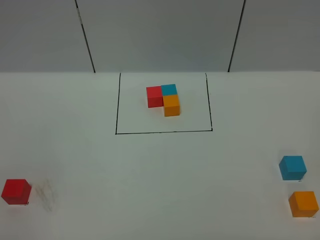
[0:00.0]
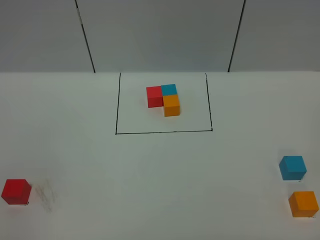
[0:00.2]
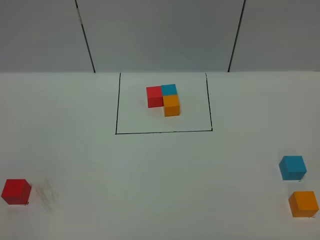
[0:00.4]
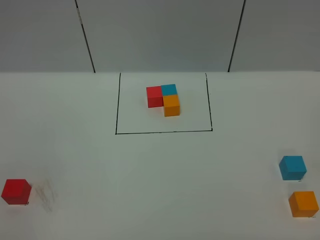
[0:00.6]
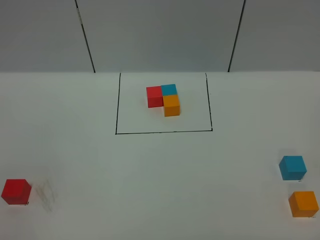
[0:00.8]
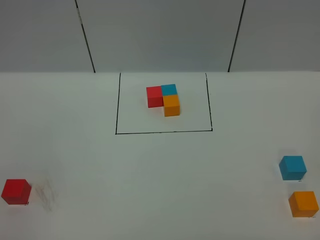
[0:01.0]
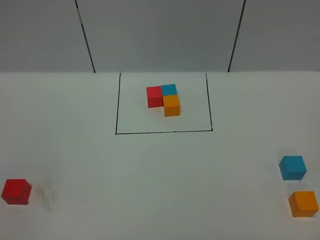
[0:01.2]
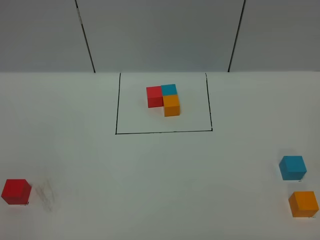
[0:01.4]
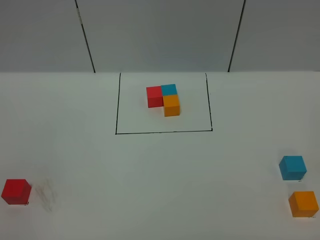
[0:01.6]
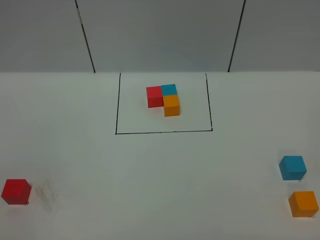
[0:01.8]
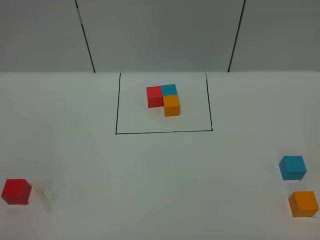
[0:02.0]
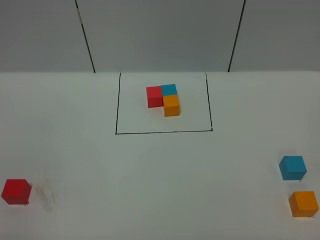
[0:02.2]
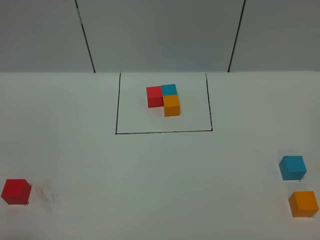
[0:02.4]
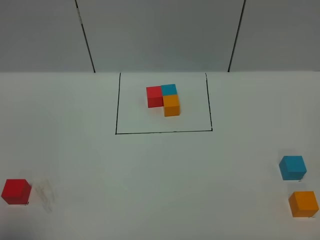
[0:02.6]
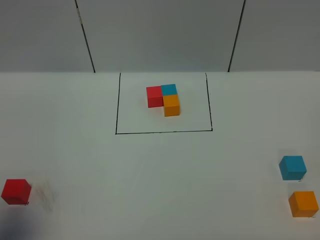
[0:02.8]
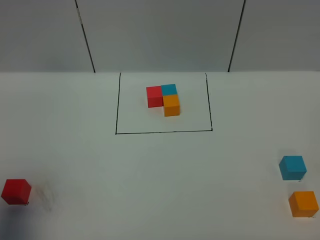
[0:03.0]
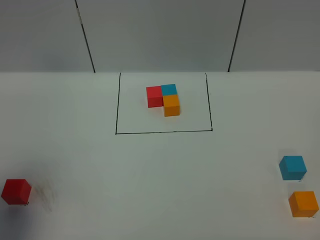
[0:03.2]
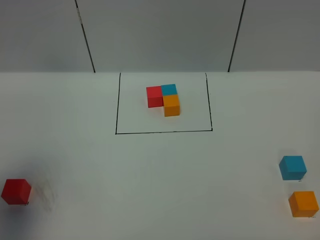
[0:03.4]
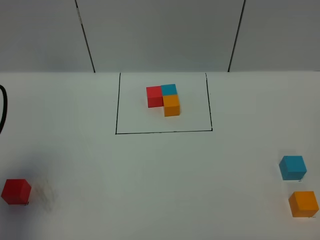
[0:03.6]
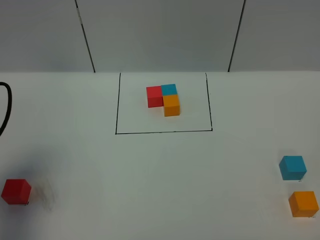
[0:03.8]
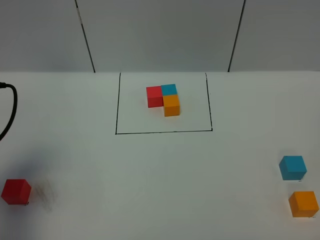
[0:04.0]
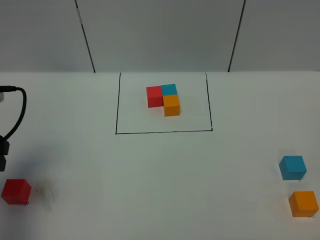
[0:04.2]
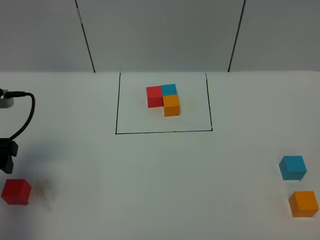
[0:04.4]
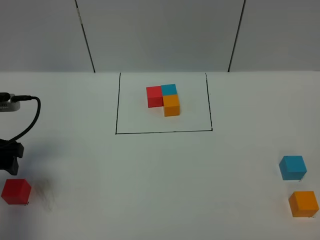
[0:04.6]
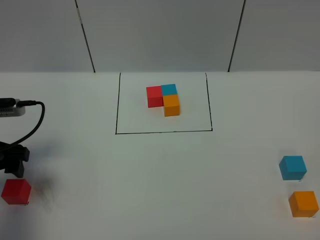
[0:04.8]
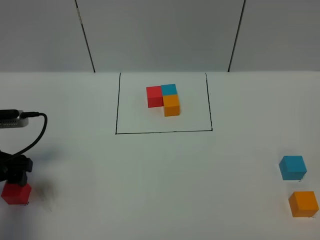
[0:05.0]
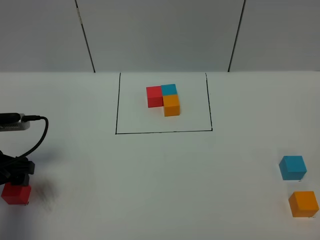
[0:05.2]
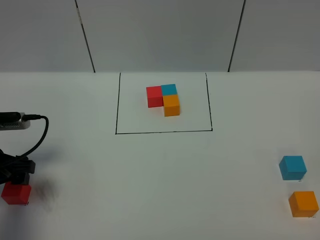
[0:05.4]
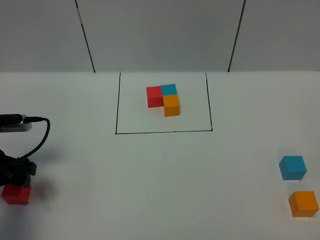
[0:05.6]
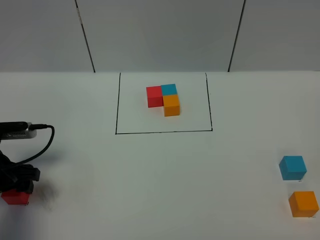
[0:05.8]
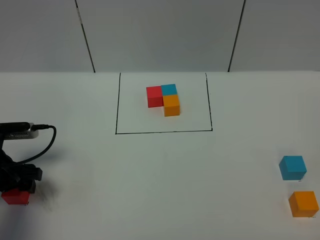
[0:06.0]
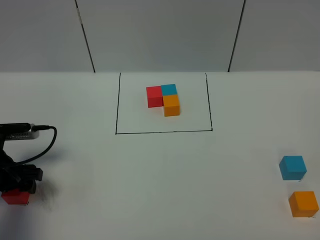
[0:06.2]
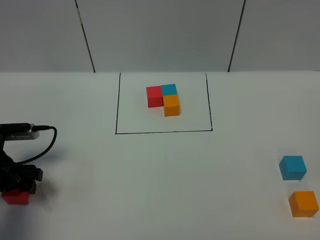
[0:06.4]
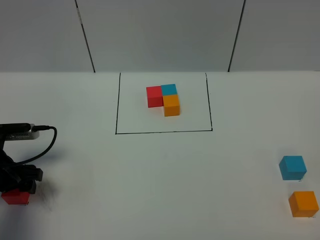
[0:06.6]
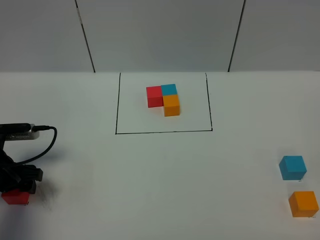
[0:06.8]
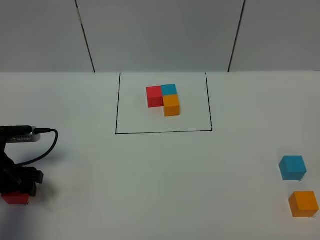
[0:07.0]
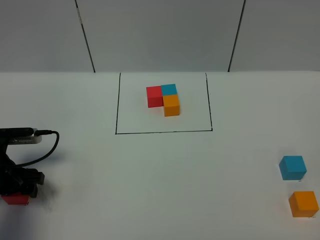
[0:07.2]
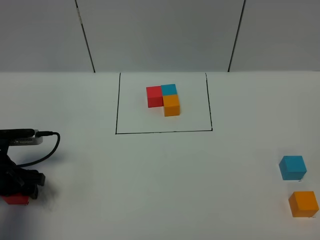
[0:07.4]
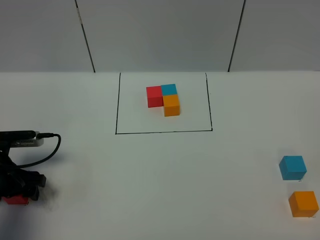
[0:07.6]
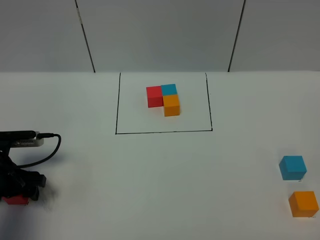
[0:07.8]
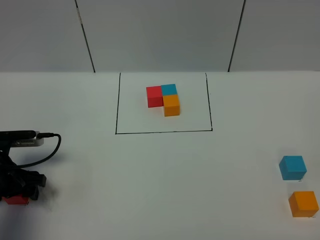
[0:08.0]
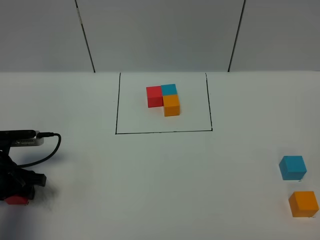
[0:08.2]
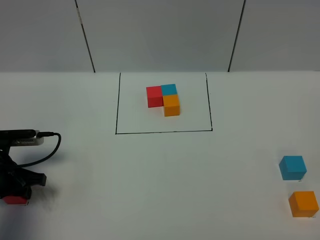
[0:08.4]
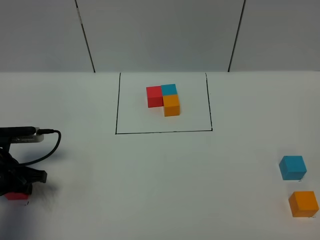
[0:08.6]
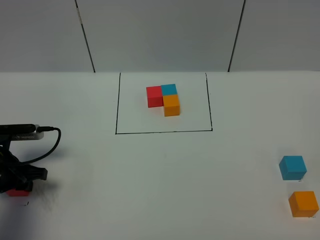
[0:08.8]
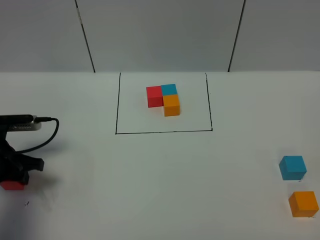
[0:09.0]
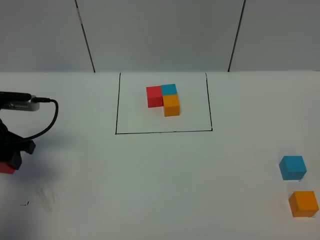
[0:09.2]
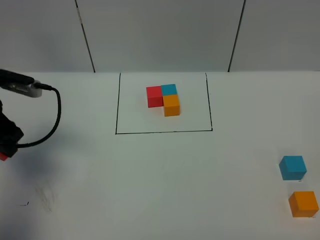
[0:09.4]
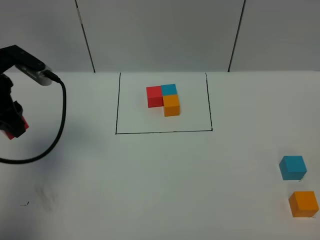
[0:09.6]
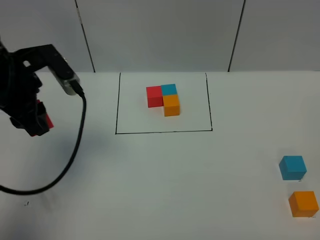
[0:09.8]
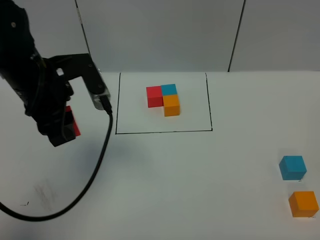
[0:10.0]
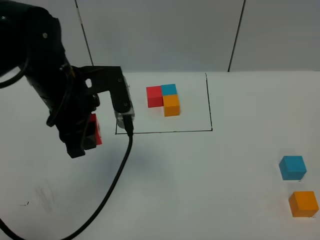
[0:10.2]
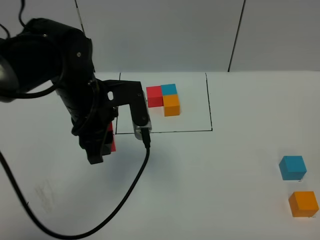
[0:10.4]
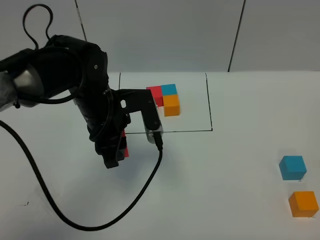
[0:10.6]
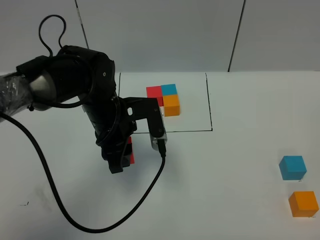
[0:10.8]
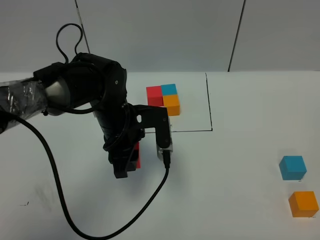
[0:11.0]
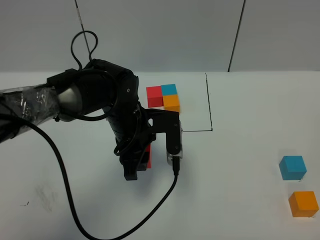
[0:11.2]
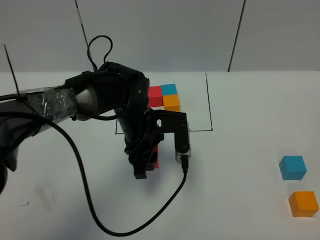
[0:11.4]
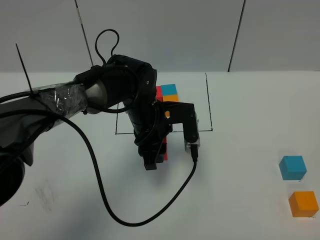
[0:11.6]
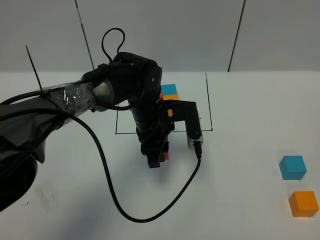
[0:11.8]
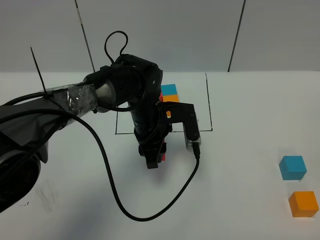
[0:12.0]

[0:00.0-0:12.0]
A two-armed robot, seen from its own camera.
Task of the whole recording: According to the building block template in front, assemble the scattered blocks together.
0:00.0 to 0:01.6: Neither gripper changes place.
0:01.6 to 0:03.0: The left gripper heads forward and upward, covering about 20 cm.
0:03.0 to 0:04.4: The left gripper goes about 15 cm forward and downward, and opens up.
0:04.4 to 0:06.0: The left gripper heads downward, covering some 10 cm.
0:06.0 to 0:07.6: The grippers move only a little.
0:07.6 to 0:09.0: The left gripper closes up.
0:09.0 to 0:10.4: The left gripper heads to the right and upward, covering about 25 cm.
0:10.4 to 0:12.0: The left gripper goes about 15 cm downward, to the right and forward.

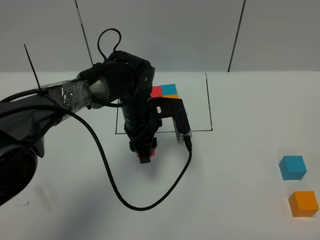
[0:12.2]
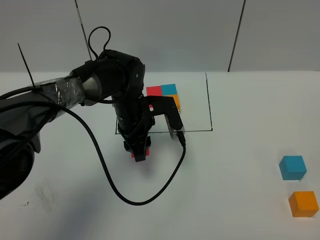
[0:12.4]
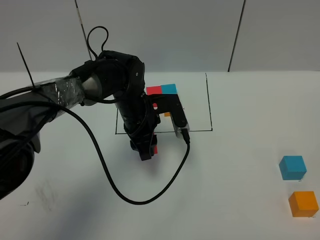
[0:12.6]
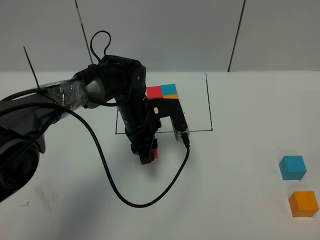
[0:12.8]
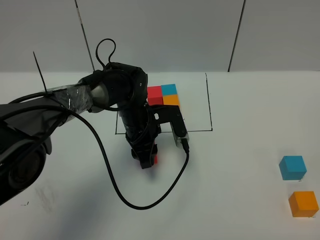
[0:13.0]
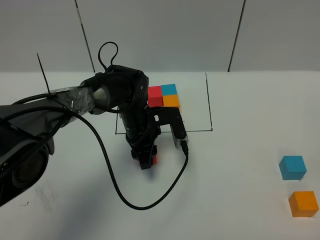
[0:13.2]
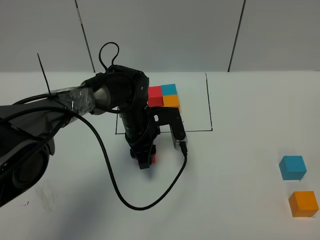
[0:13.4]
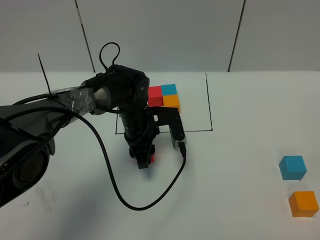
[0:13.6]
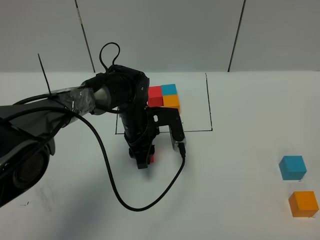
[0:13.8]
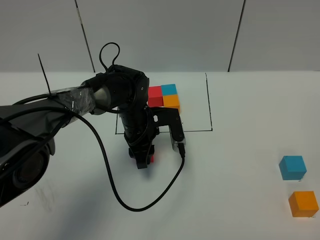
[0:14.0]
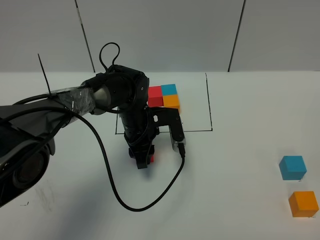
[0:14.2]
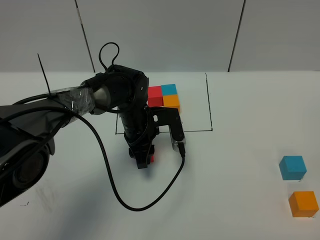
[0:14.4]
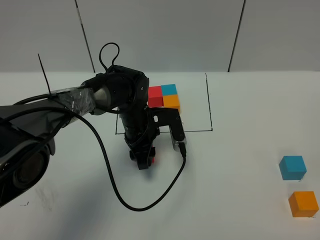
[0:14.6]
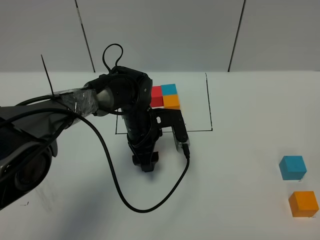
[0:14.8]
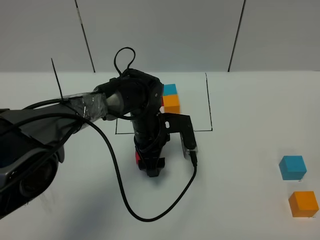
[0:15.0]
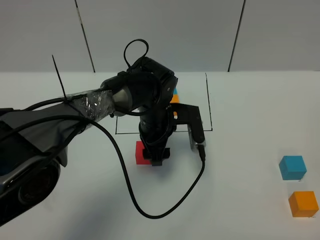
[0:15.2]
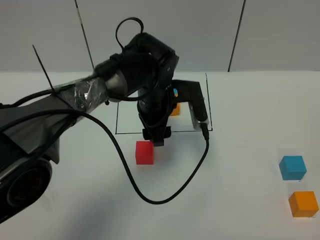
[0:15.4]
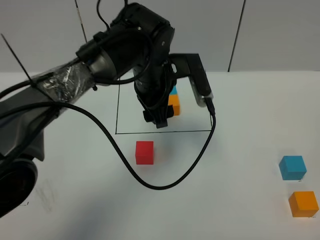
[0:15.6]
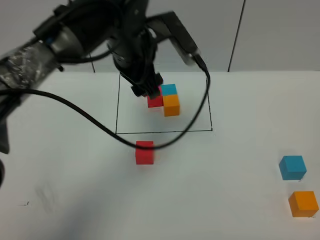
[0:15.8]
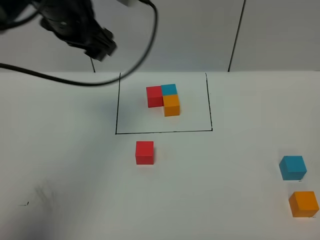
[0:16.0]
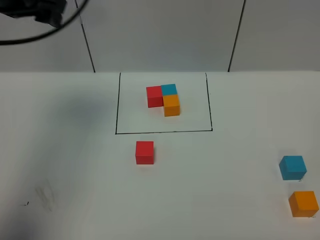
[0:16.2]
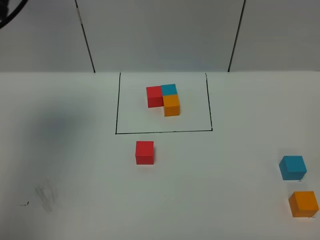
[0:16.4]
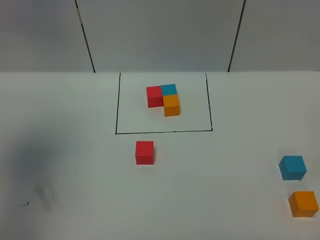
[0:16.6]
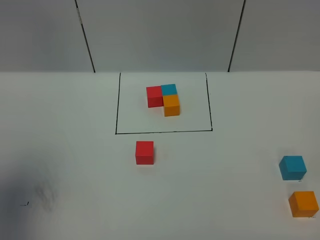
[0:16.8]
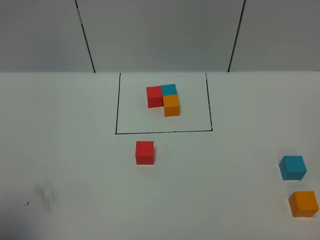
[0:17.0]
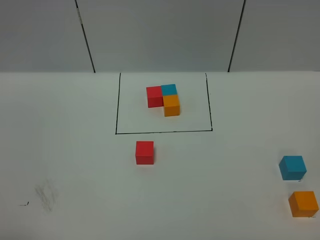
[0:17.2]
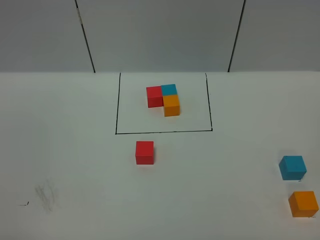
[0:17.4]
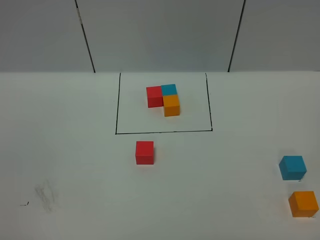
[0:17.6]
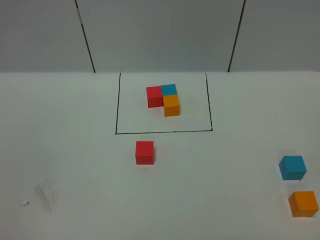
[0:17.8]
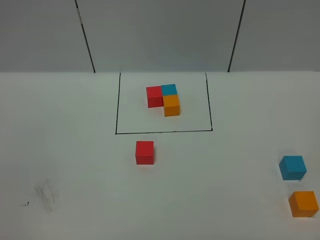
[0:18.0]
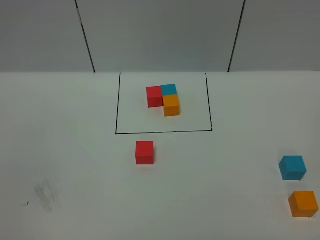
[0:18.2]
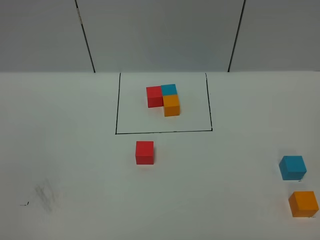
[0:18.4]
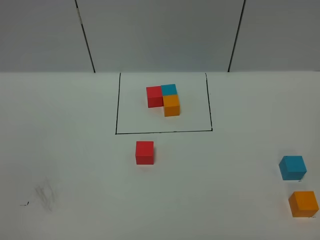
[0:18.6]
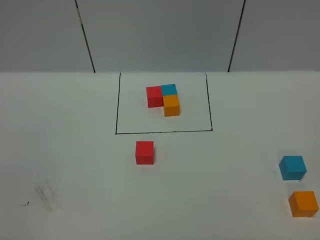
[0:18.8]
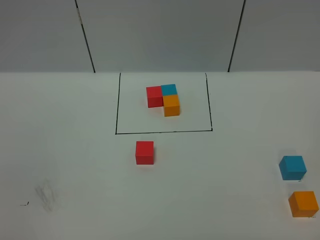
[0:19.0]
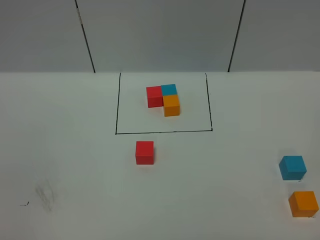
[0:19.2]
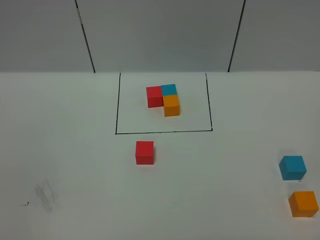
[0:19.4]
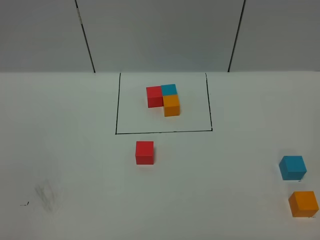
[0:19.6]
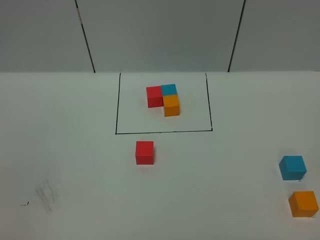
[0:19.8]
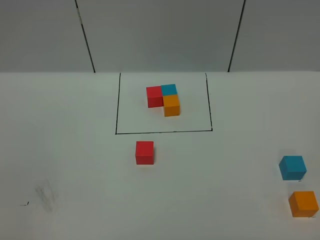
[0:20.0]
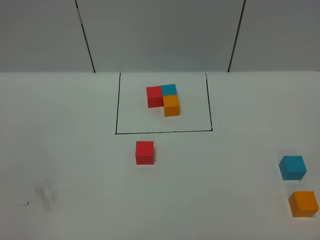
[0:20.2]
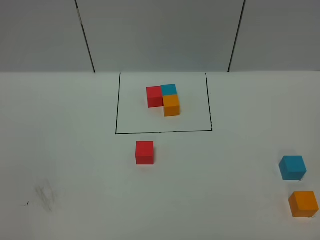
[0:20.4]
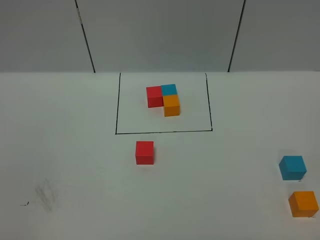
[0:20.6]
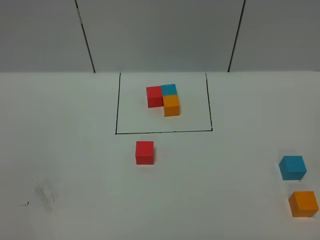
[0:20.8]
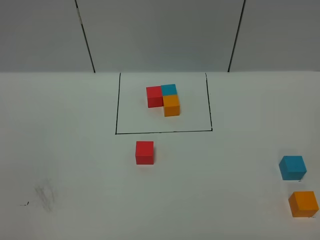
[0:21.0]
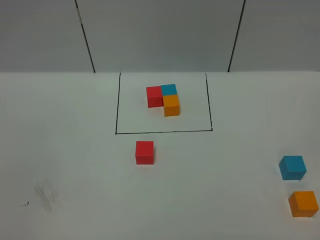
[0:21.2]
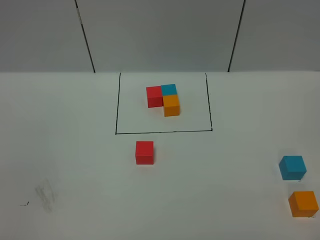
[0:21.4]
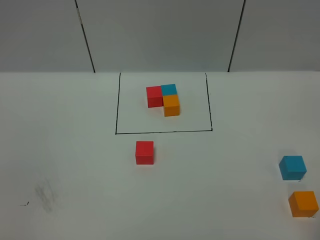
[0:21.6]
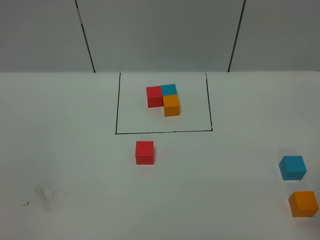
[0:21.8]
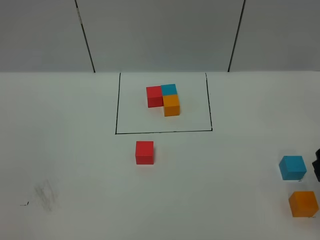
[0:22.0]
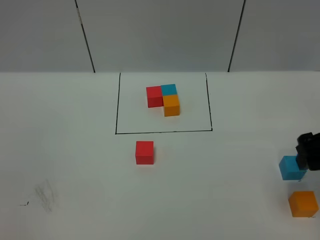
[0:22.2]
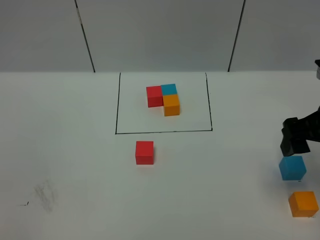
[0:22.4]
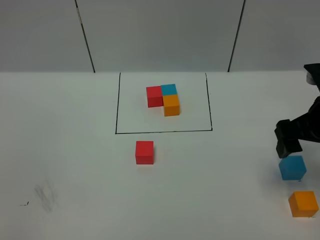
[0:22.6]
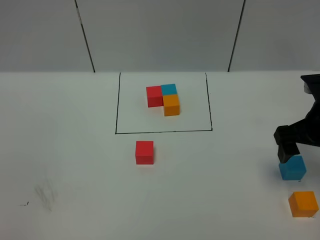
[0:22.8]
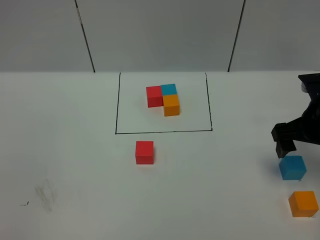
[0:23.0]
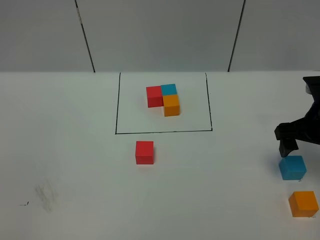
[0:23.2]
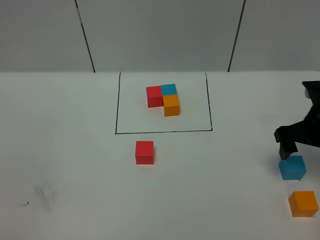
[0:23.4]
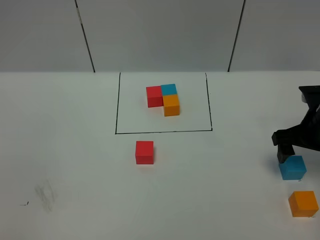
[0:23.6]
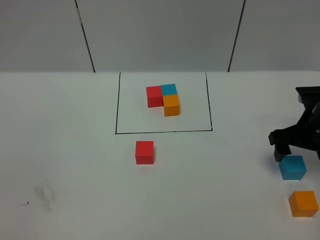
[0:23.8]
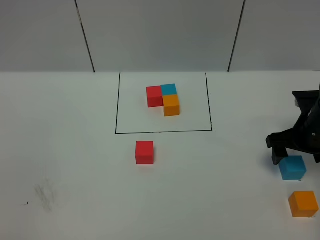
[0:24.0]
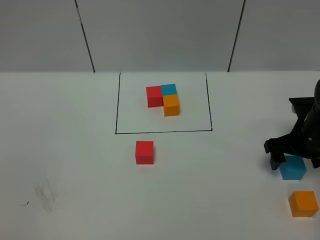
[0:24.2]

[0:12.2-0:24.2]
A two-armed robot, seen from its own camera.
Task of the whole recording: According to the building block template in front, assemble the scattered blocks together.
Step, 0:12.2 to 0:15.0: Put the red cube in the center of the table.
0:12.2 to 0:13.8: There are only small adjustments of the grippers.
0:13.8 to 0:15.2: The left gripper ends up some 5 cm from where it was, and opens its fingers.
0:15.2 to 0:16.6: The left gripper travels upward, to the left and backward by roughly 40 cm.
0:16.6 to 0:18.2: The left gripper moves backward and downward, approximately 30 cm.
0:21.2 to 0:22.6: The right gripper travels forward by roughly 25 cm.
0:22.6 to 0:24.2: The right gripper is displaced downward and forward by about 15 cm.
